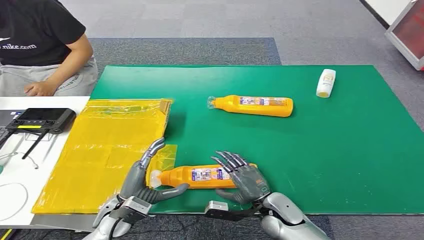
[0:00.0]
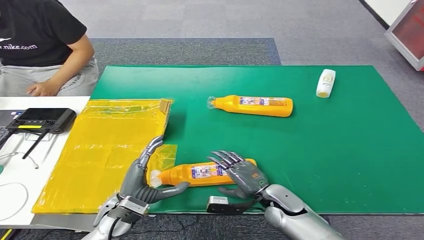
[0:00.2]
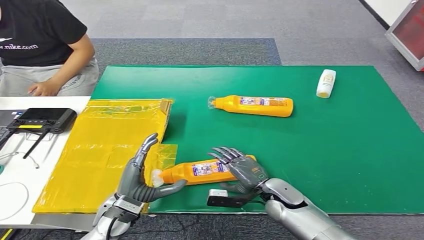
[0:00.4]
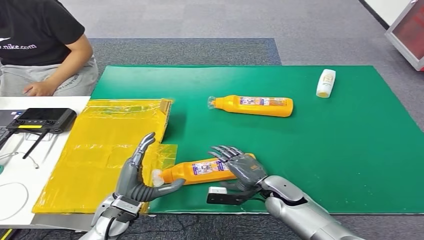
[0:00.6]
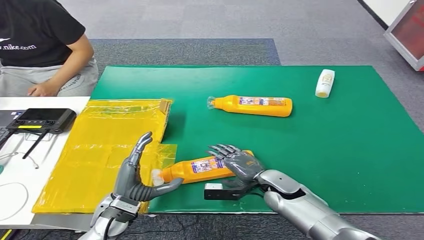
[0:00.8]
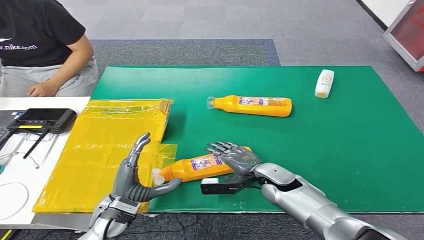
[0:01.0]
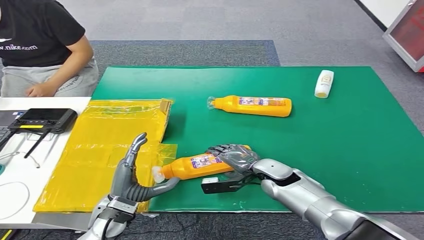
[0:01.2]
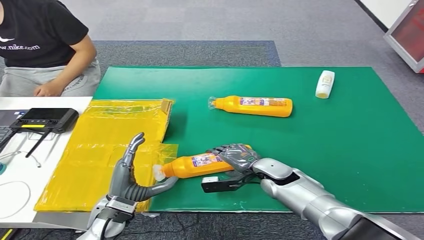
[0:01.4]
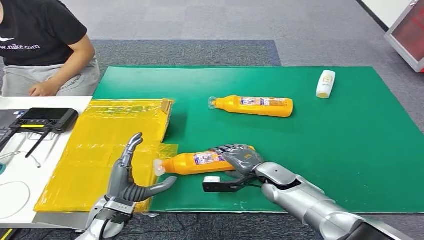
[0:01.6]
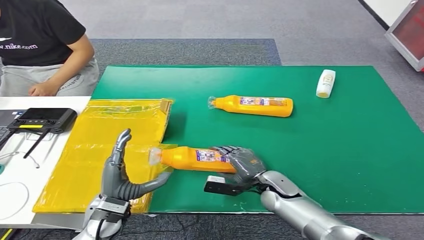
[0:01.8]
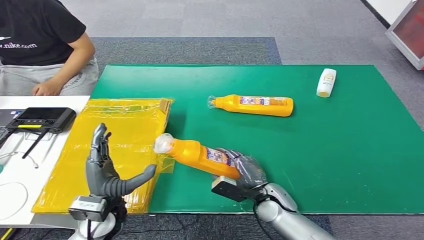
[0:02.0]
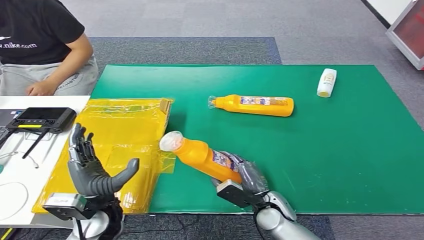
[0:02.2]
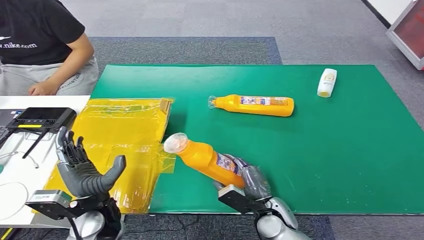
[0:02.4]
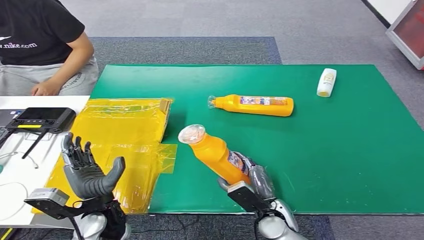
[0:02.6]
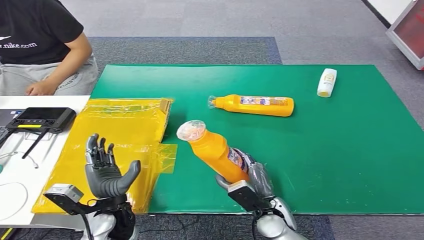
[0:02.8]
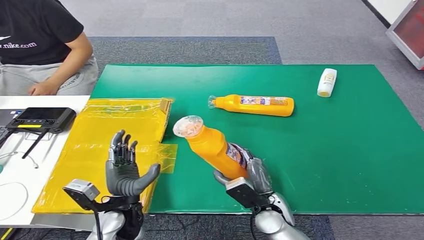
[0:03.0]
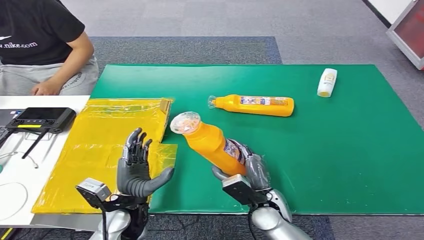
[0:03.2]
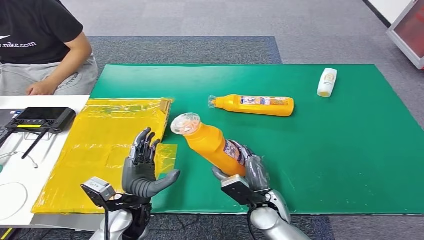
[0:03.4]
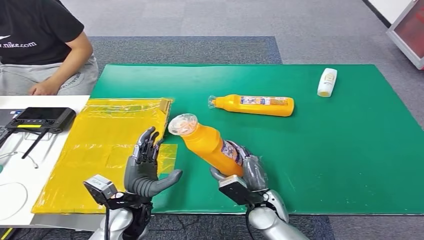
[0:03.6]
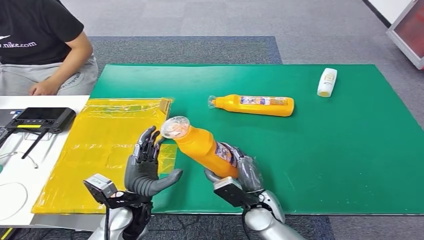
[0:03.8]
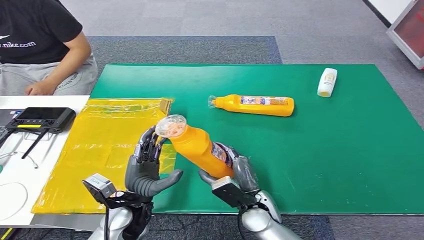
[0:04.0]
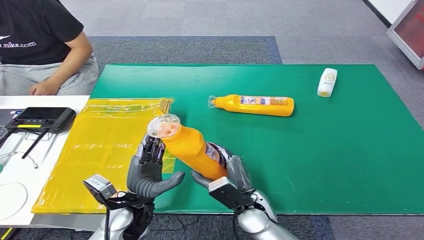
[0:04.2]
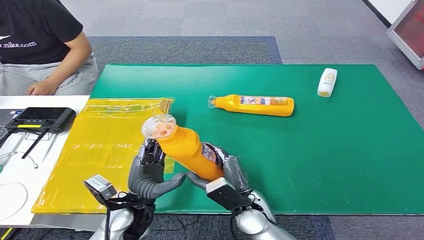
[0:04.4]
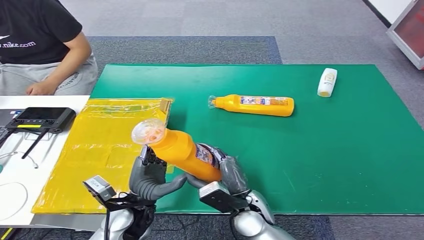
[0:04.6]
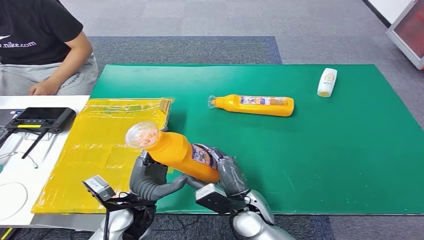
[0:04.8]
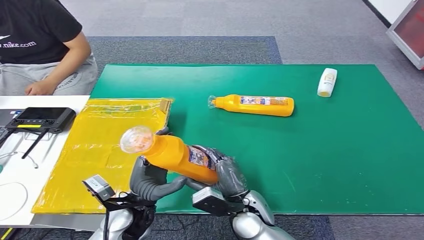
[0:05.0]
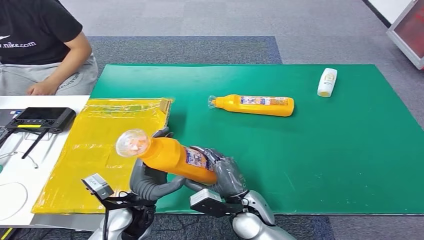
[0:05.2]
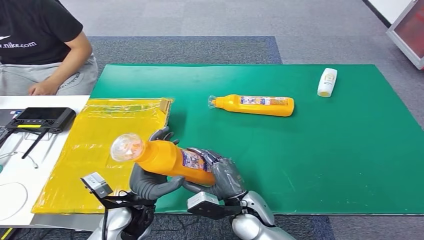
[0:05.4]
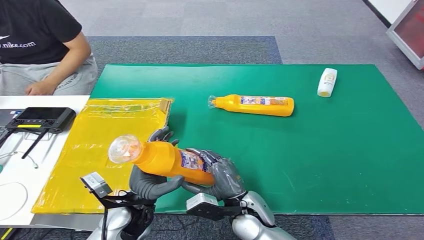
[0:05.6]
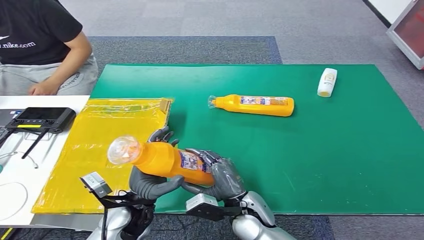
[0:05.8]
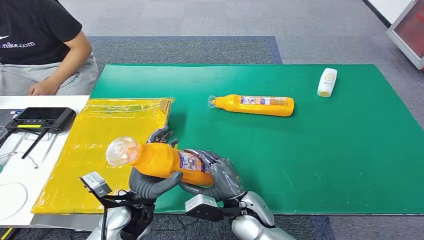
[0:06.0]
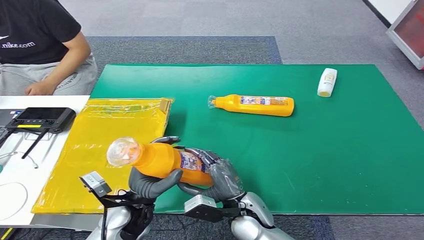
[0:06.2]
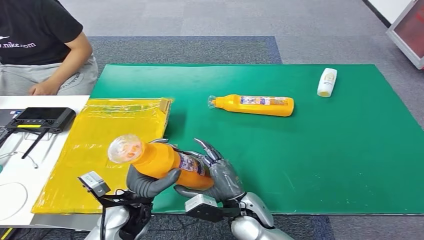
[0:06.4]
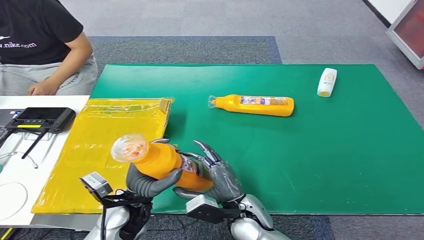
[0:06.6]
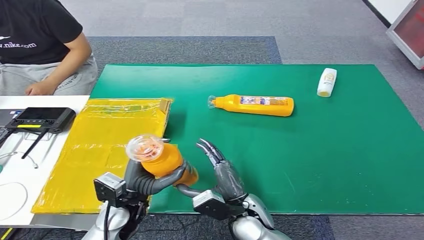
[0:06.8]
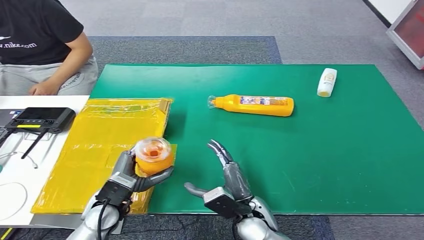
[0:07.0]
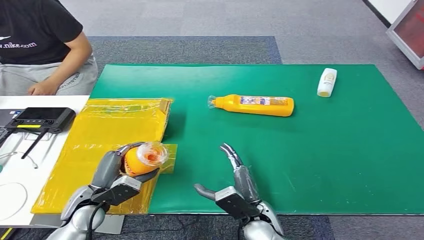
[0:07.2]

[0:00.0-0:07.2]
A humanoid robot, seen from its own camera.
Step, 0:00.0 to 0:03.2: Pick up the bottle from the table.
Step, 0:03.6 to 0:07.2: Turn the bottle to the front side.
0:02.8 to 0:04.4: The right hand goes some 5 cm to the left.
0:04.4 to 0:05.8: The hands stay close to where they were, moving slightly.
0:05.8 to 0:07.2: The left hand moves to the left, about 10 cm.

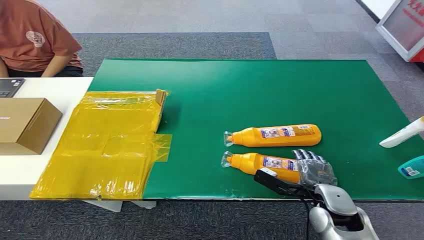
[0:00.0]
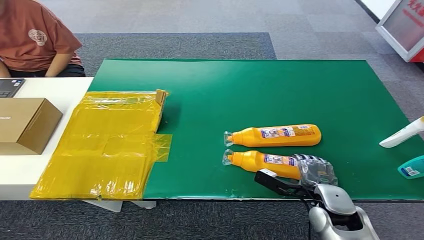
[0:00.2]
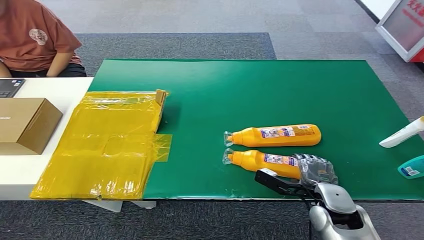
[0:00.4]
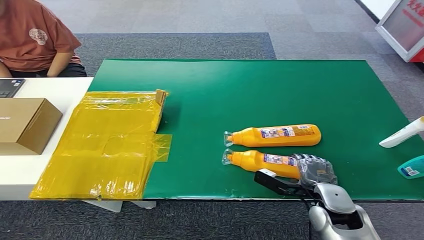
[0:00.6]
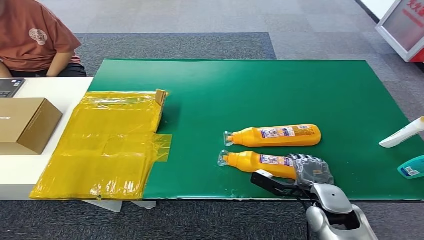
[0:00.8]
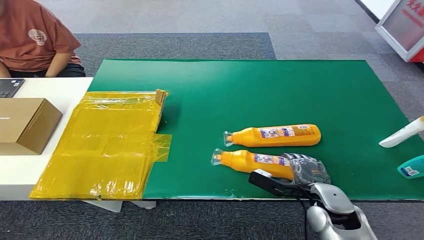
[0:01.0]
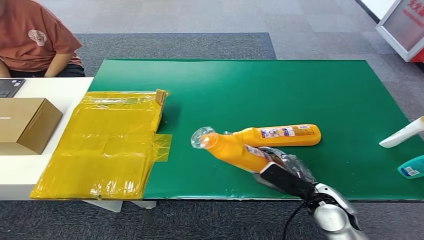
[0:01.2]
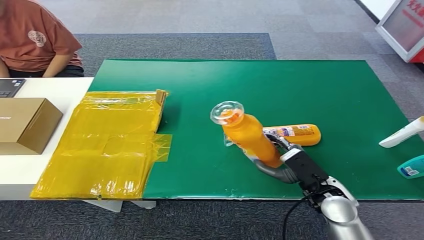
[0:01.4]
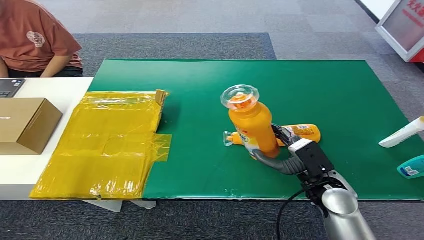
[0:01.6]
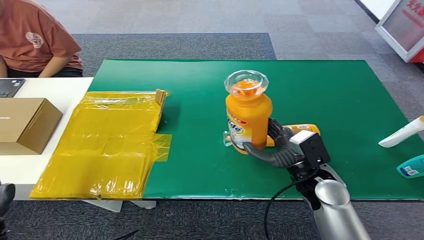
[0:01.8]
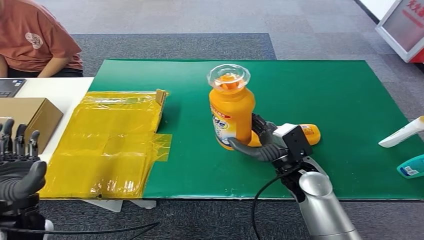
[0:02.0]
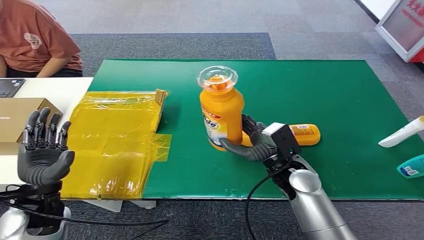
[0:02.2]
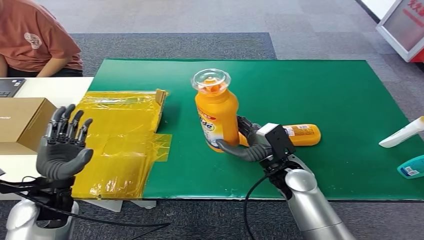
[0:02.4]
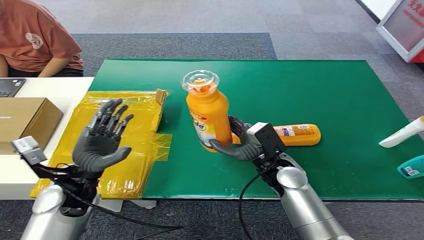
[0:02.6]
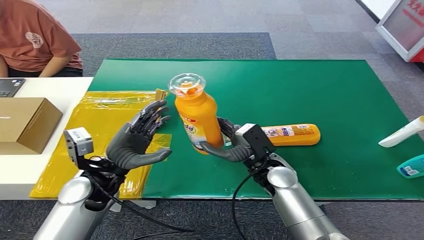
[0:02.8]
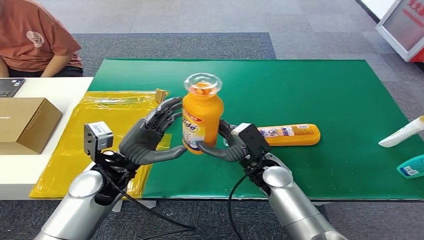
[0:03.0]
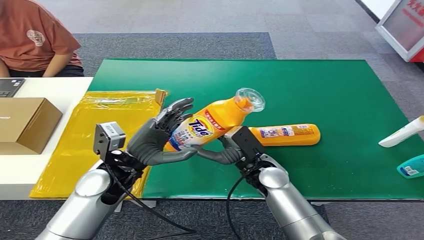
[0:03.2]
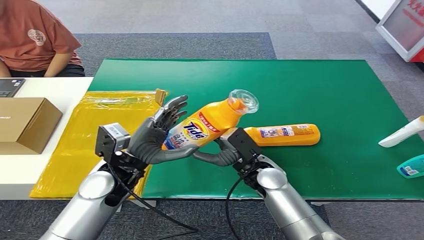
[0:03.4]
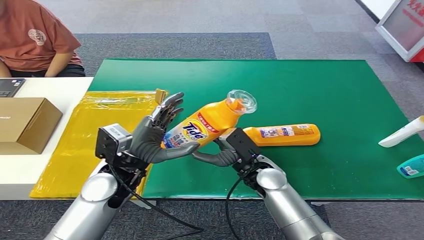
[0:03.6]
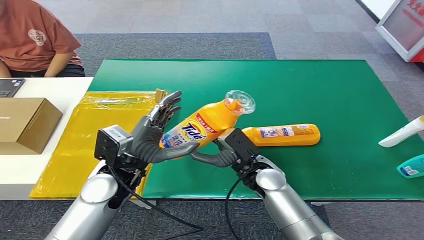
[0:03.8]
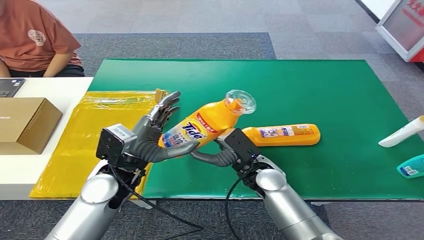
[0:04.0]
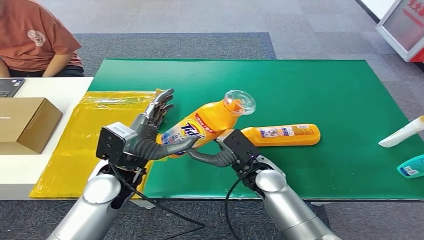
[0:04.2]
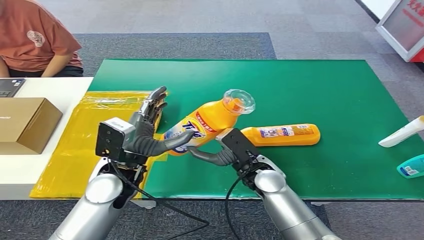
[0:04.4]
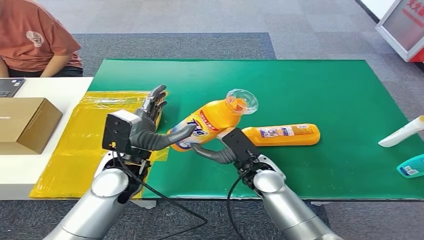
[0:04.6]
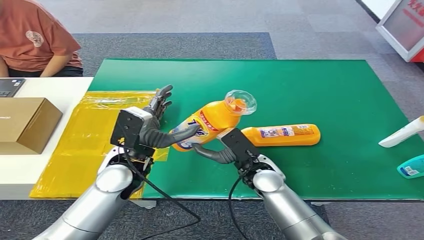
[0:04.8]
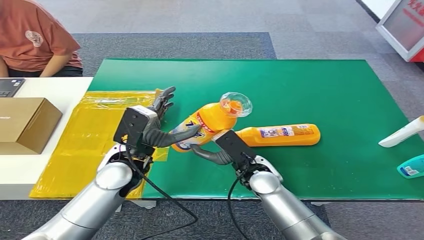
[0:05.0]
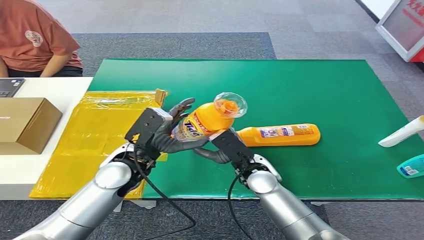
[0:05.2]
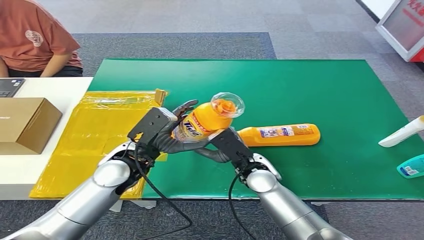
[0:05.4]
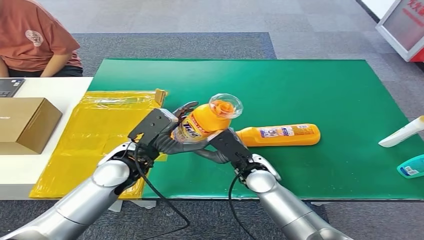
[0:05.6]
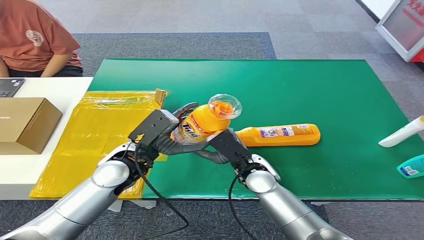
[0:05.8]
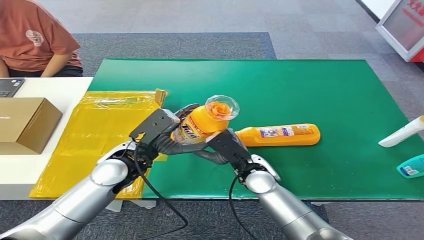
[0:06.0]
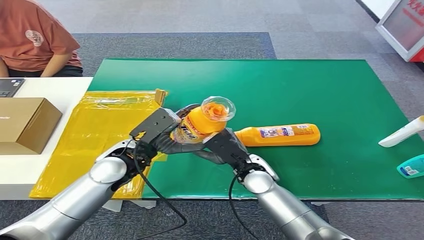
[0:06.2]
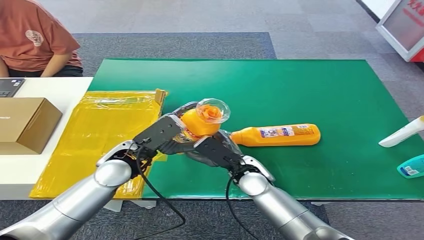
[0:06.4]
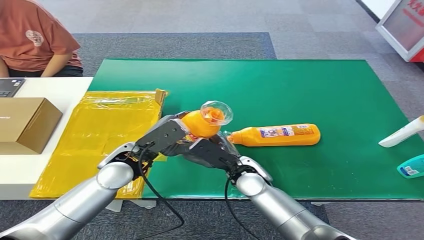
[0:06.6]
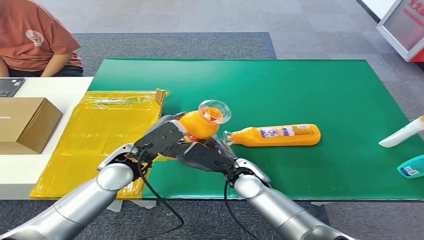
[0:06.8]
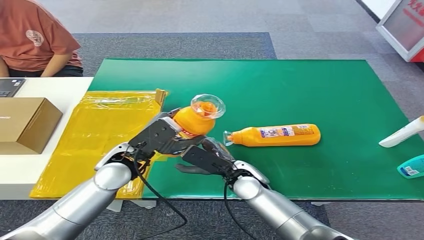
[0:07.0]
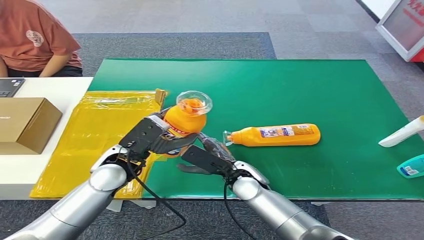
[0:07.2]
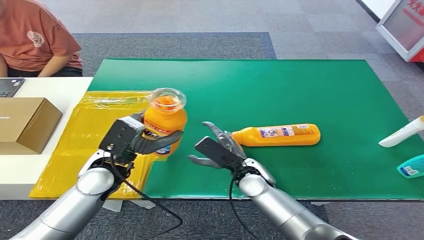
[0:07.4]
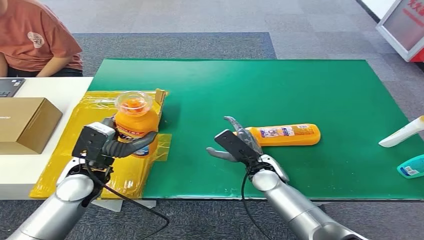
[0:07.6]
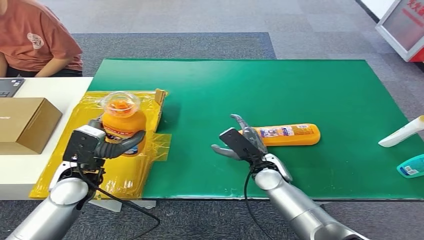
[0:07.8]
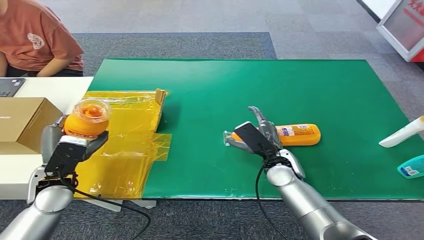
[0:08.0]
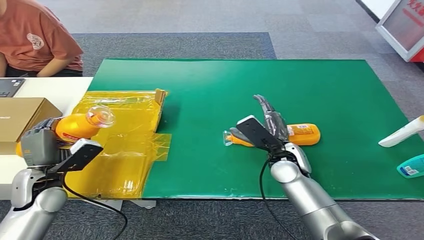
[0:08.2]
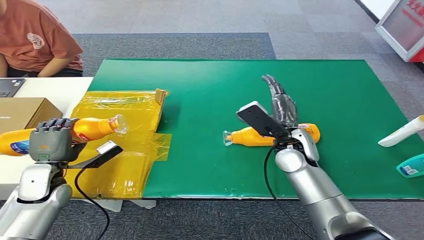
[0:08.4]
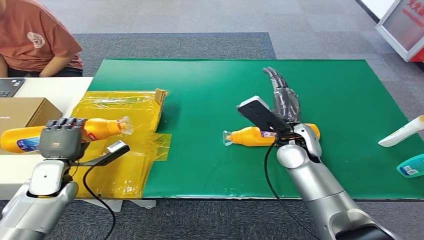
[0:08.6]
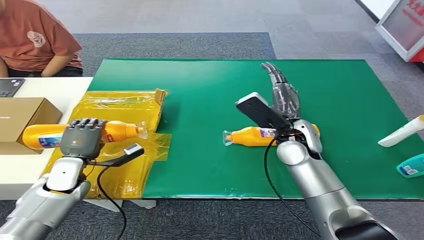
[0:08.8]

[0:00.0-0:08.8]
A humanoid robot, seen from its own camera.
Step, 0:00.0 to 0:01.6: Pick up the bottle from the table.
Step, 0:01.8 to 0:08.6: Turn the bottle to the front side.
0:01.4 to 0:03.0: The left hand goes roughly 30 cm to the right and forward; the right hand heads to the left and forward, covering about 15 cm.
0:05.8 to 0:07.4: The hands move only a little.

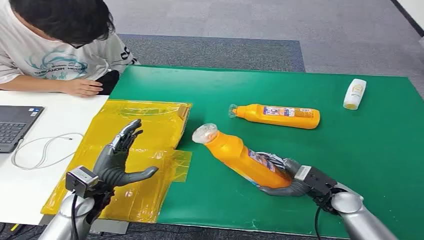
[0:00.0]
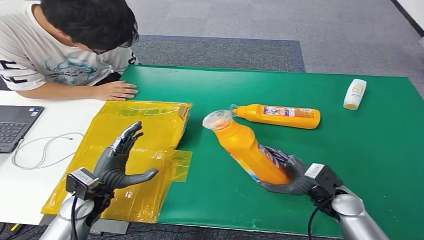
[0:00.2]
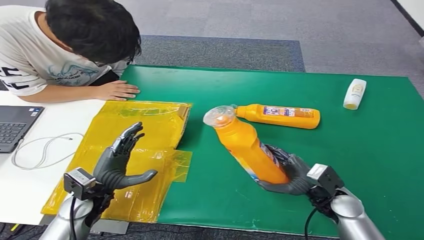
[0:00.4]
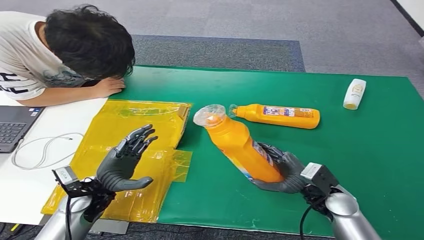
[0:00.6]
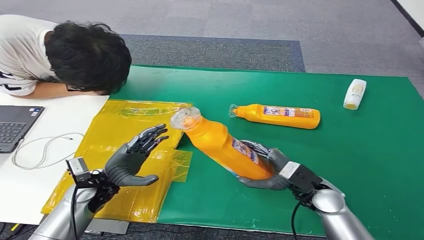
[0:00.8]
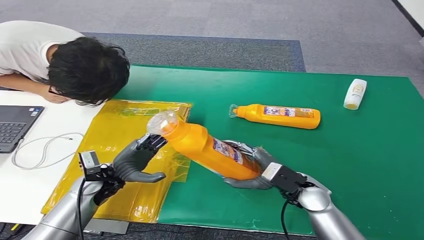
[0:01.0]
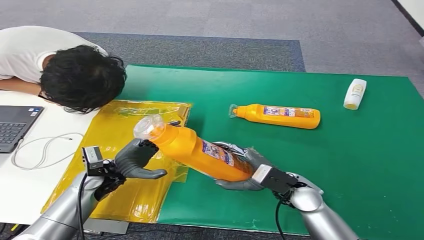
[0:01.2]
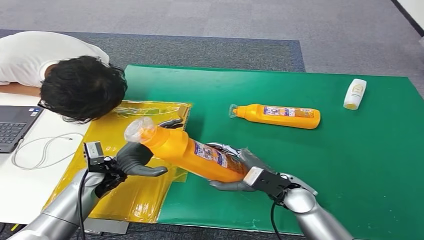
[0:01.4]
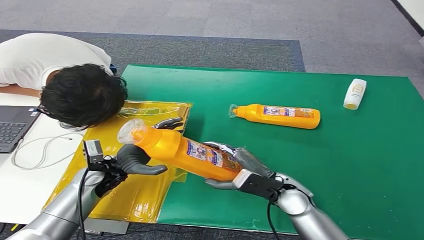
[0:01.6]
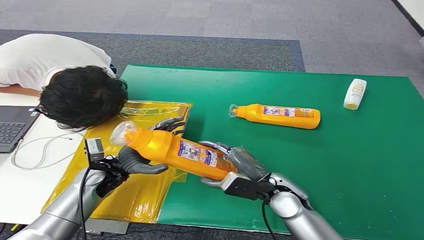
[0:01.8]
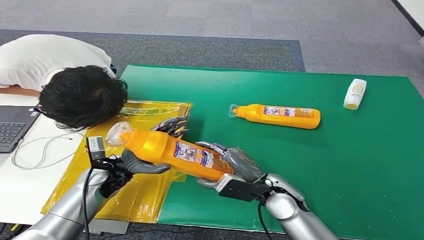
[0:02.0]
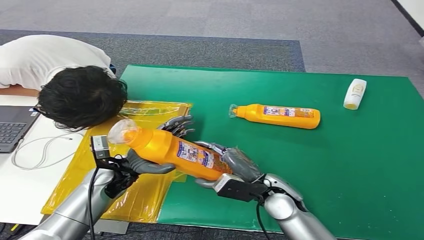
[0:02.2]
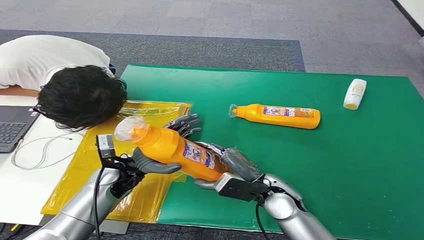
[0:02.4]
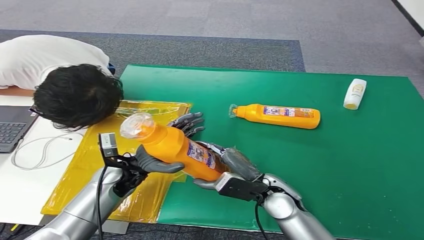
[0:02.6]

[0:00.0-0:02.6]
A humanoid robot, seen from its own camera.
Step, 0:00.0 to 0:01.0: Pick up the bottle from the table.
